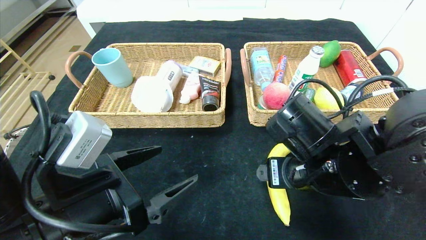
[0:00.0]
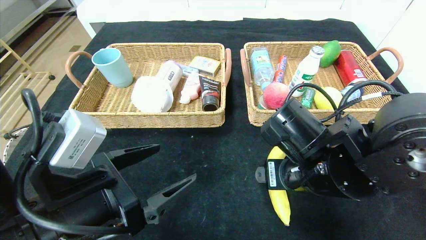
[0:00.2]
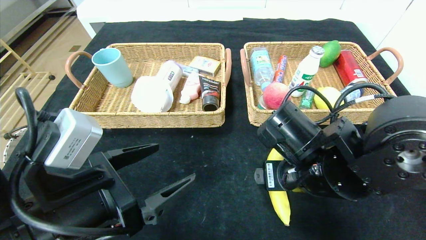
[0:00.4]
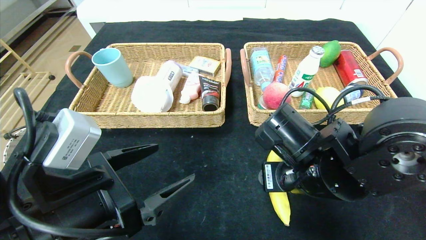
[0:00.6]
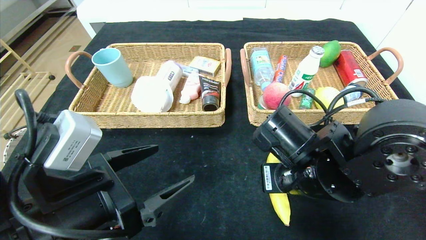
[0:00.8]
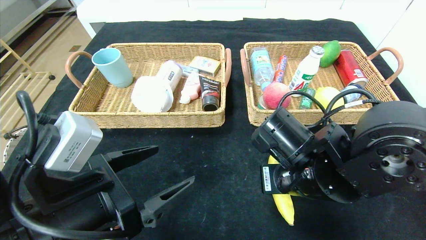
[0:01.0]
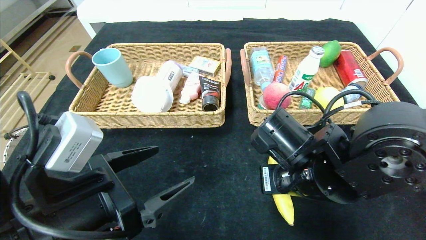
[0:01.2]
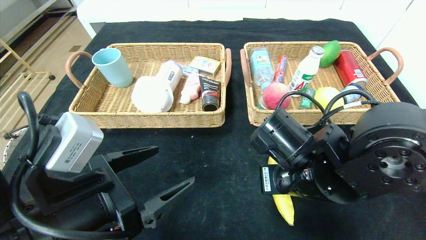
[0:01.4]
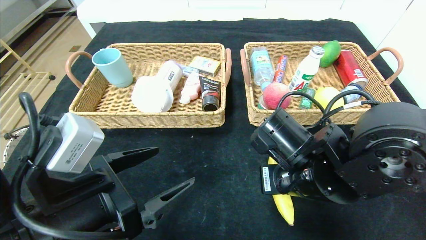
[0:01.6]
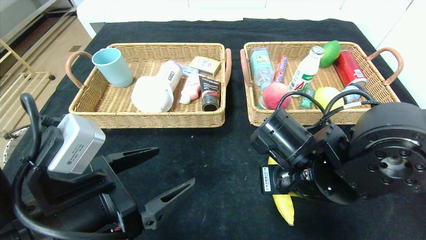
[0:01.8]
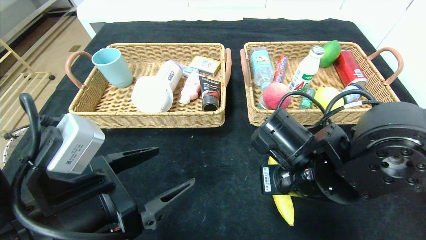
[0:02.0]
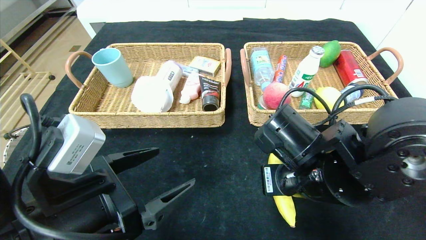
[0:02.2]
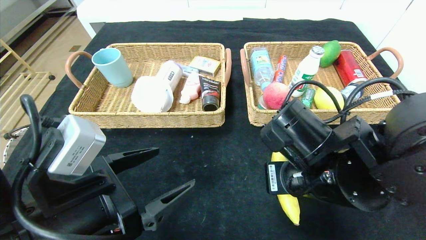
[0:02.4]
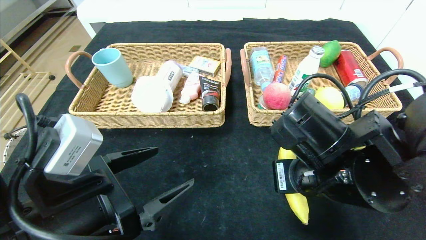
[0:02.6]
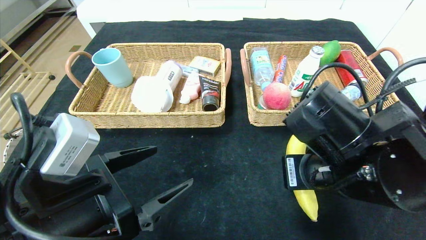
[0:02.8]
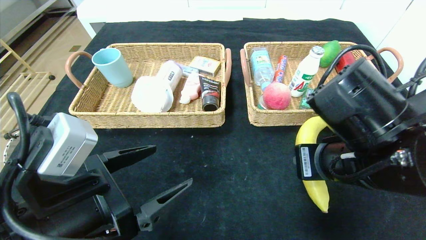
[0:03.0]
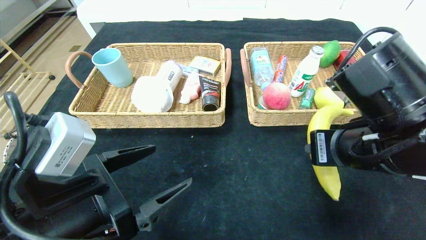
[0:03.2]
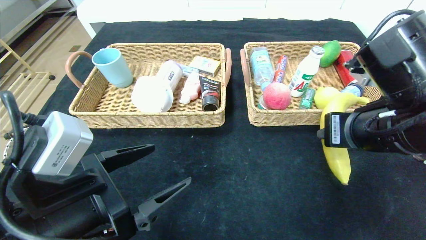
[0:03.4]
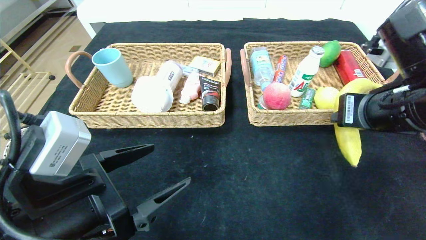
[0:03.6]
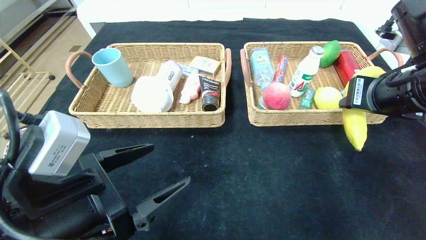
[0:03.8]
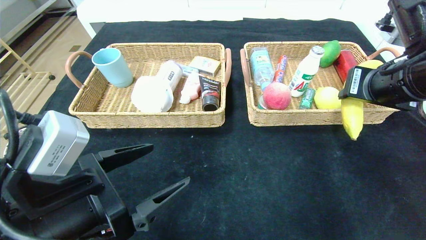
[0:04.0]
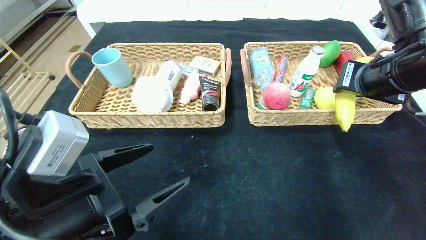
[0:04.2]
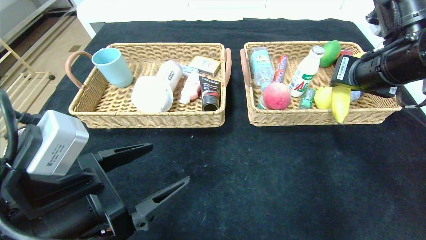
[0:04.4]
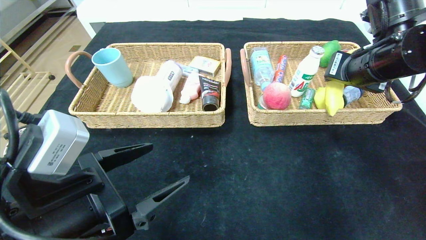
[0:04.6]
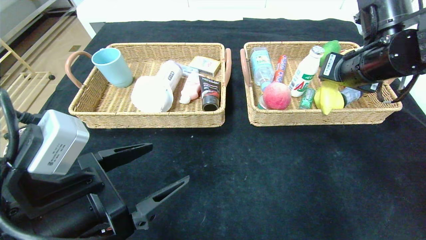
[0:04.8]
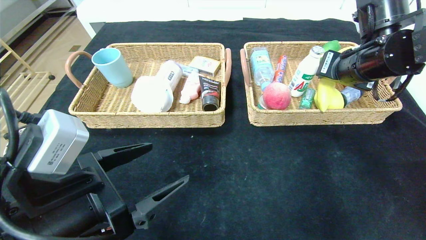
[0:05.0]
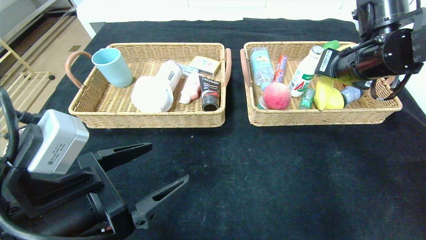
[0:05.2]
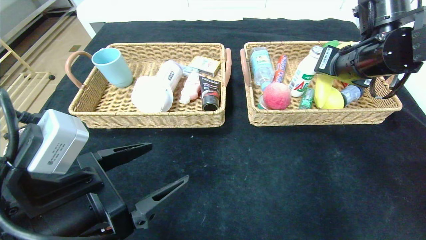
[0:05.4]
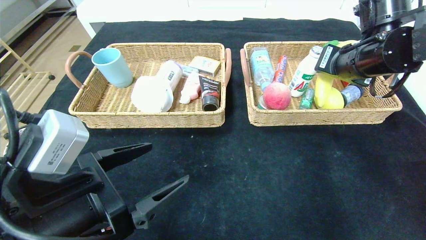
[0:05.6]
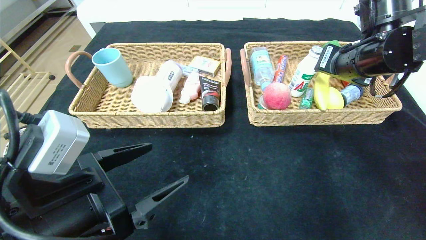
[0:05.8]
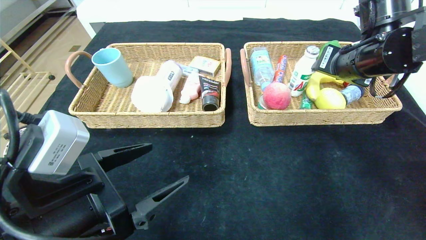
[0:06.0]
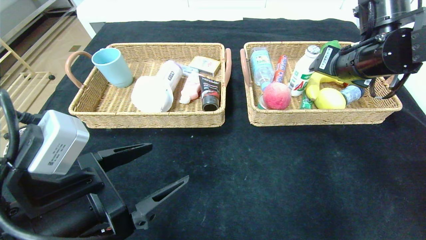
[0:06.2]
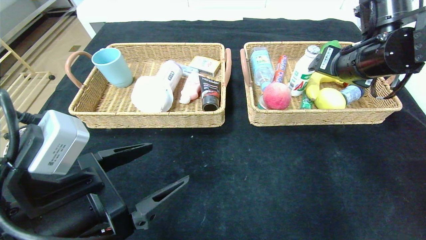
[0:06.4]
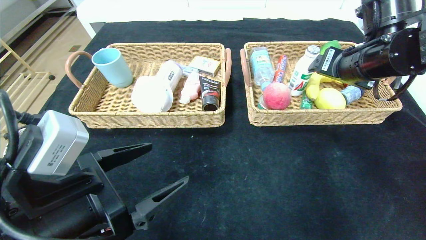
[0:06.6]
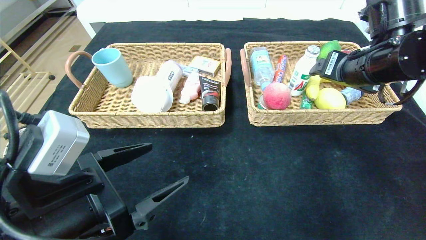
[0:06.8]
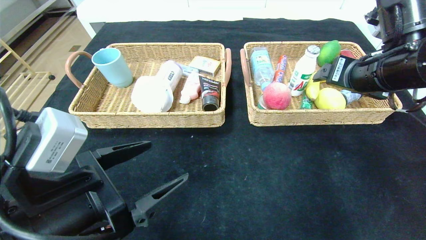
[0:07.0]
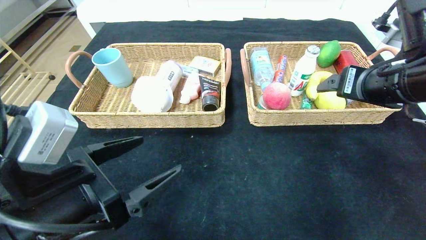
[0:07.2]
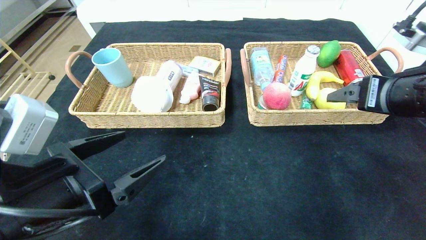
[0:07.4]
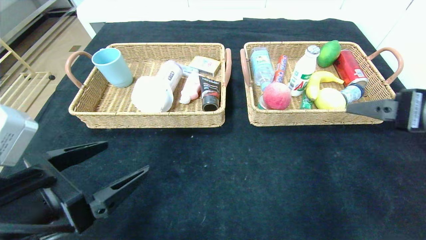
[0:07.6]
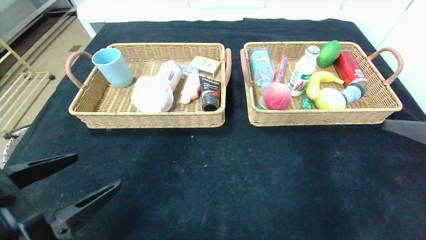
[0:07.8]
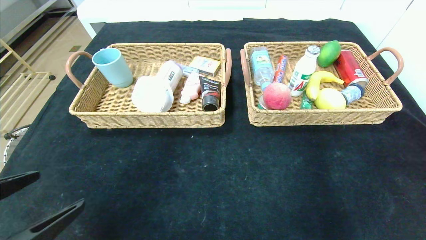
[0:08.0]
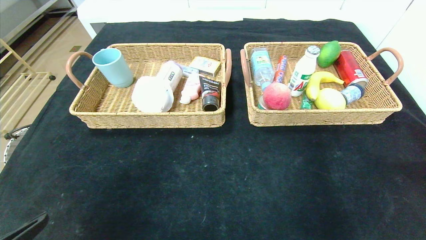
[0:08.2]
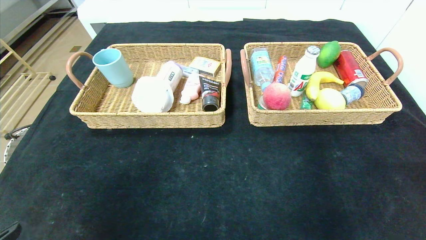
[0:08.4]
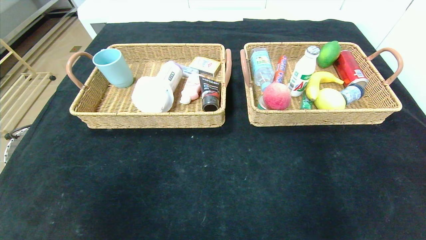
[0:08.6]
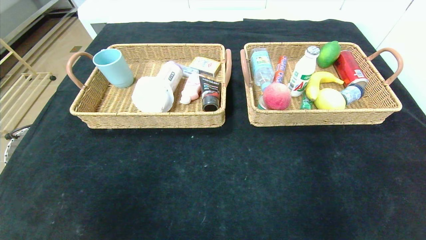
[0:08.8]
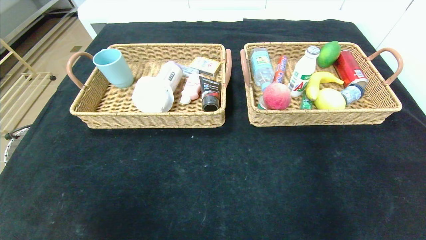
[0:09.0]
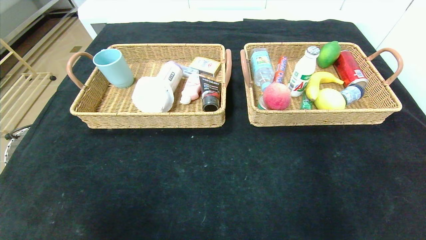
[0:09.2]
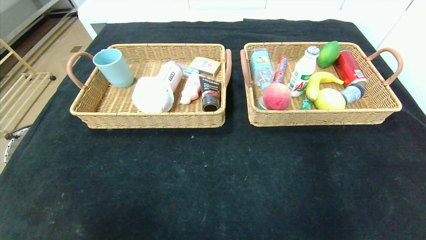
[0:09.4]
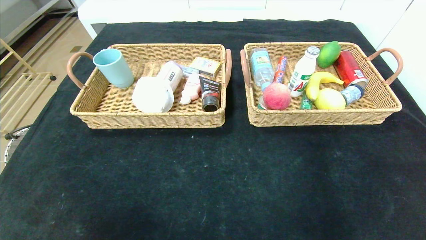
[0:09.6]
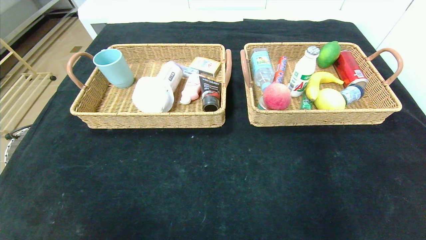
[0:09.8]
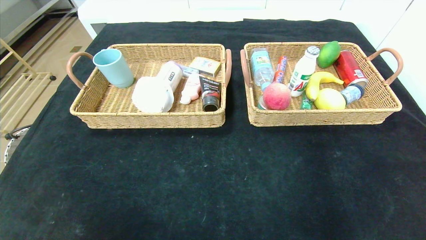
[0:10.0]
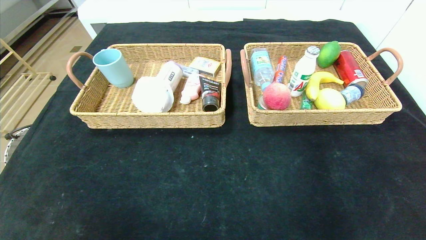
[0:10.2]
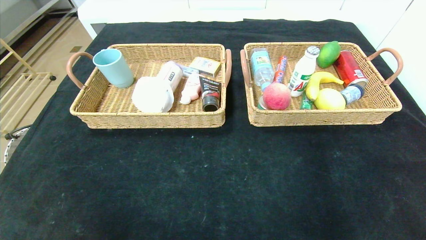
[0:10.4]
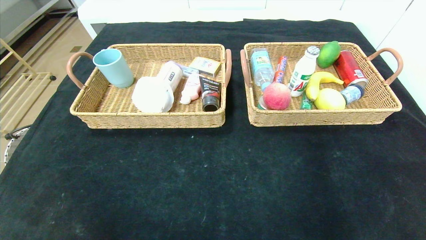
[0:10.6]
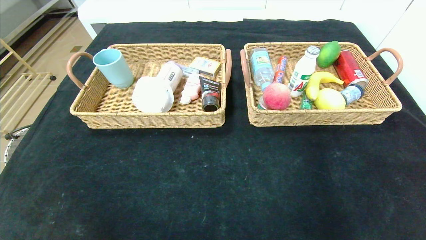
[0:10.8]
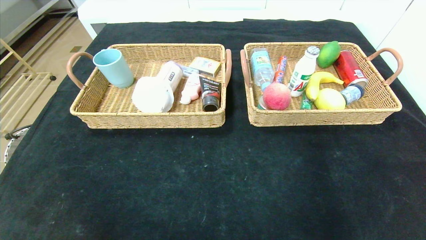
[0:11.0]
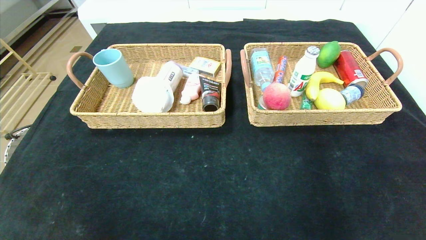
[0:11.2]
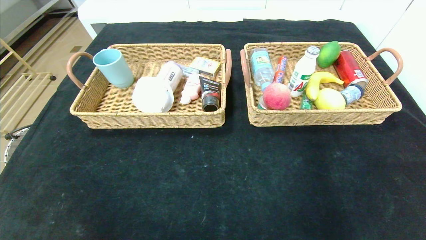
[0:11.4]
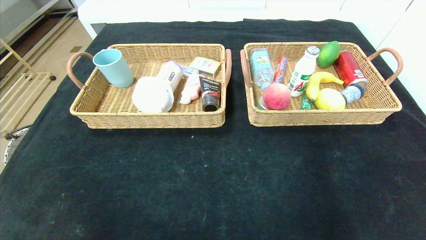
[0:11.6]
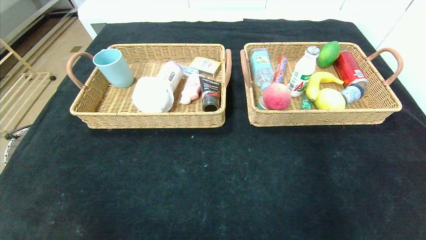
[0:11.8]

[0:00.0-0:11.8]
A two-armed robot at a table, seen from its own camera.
Step, 0:00.0 to 0:07.8: Pick up the banana and put it in the right basket.
0:00.0 to 0:01.4: The right gripper closes.
0:01.4 to 0:03.0: The right gripper shifts about 5 cm upward.
0:03.0 to 0:04.4: The right gripper travels forward, to the right and upward by approximately 15 cm.
0:04.4 to 0:06.0: The right gripper opens up.
0:06.0 to 0:07.4: The right gripper is displaced backward by roughly 10 cm, and opens.
0:07.4 to 0:08.8: The left gripper goes some 20 cm backward and to the left. The right gripper goes roughly 30 cm backward.

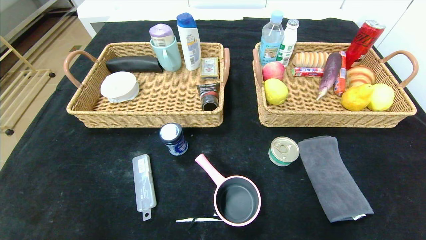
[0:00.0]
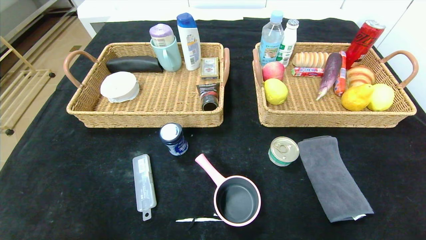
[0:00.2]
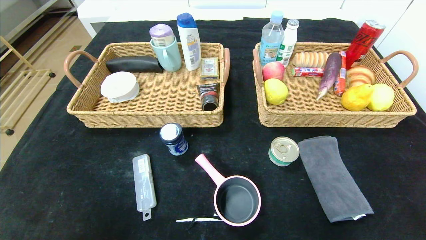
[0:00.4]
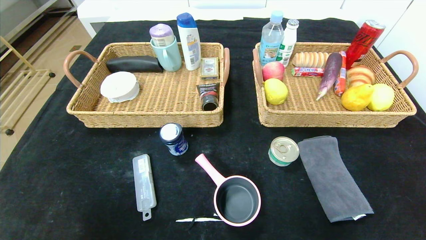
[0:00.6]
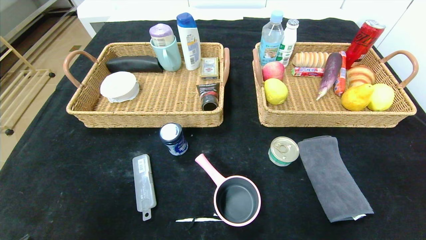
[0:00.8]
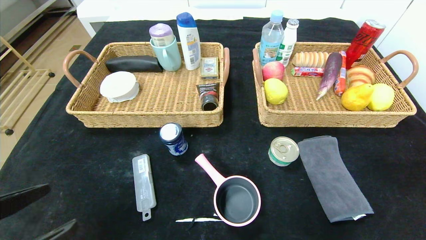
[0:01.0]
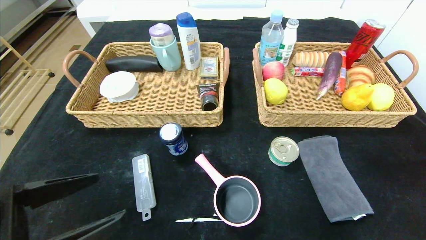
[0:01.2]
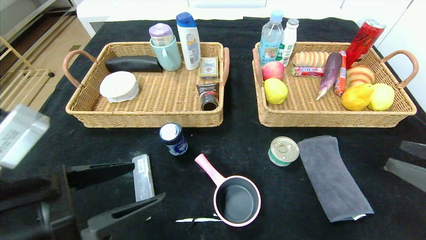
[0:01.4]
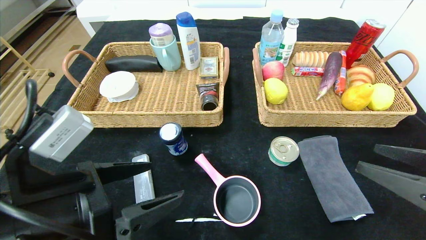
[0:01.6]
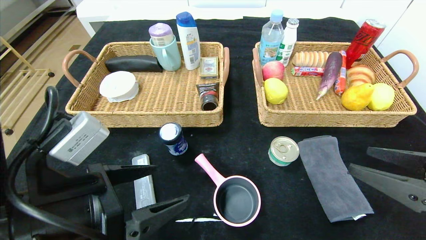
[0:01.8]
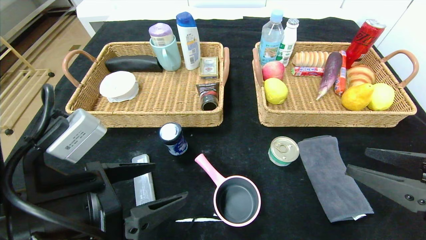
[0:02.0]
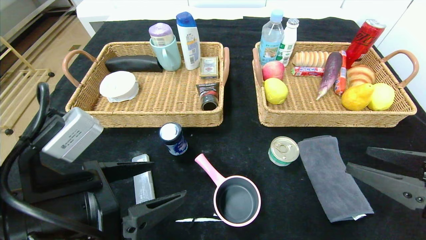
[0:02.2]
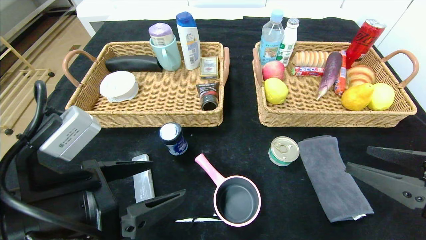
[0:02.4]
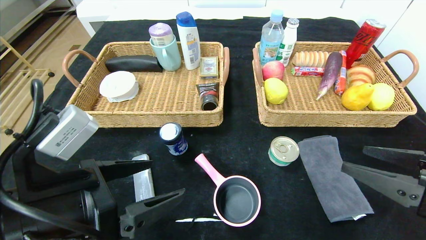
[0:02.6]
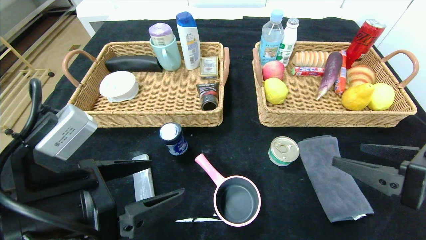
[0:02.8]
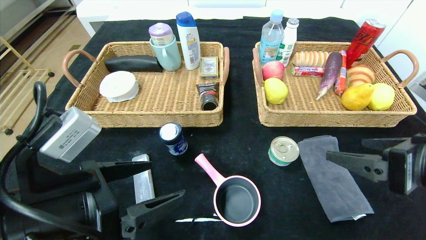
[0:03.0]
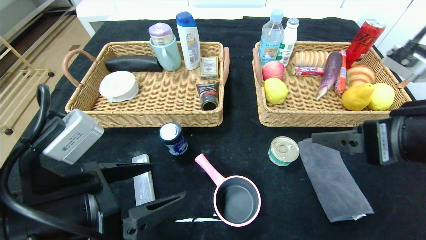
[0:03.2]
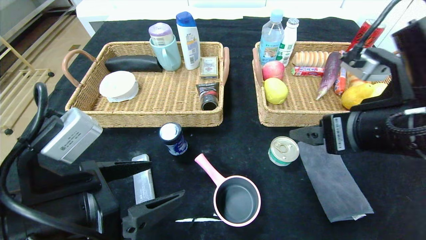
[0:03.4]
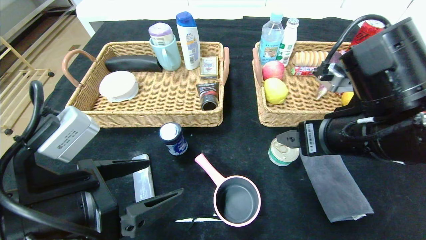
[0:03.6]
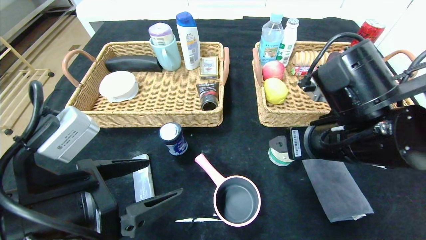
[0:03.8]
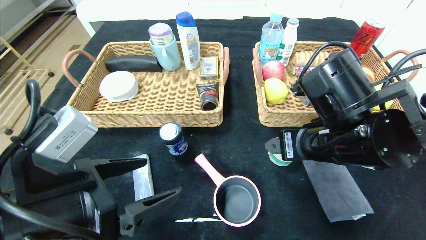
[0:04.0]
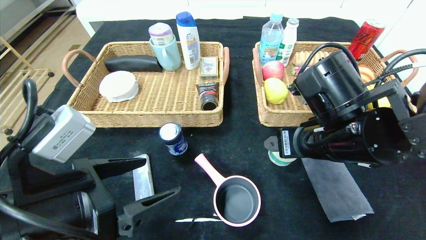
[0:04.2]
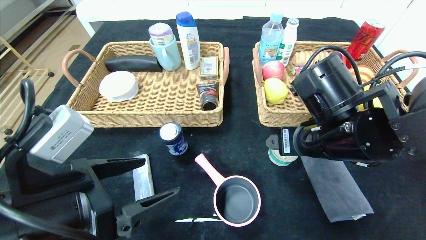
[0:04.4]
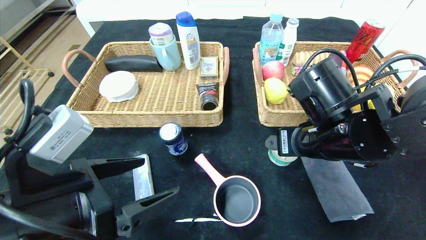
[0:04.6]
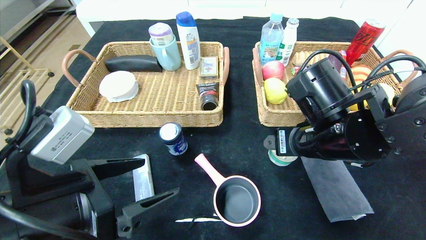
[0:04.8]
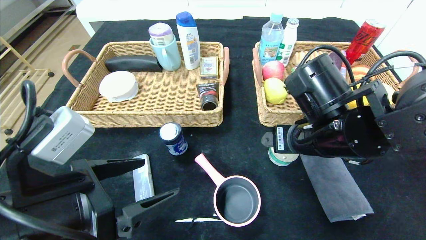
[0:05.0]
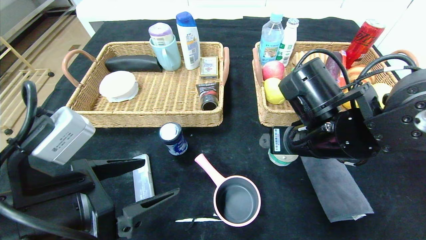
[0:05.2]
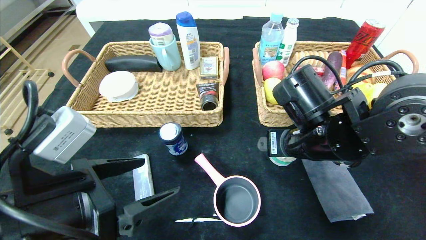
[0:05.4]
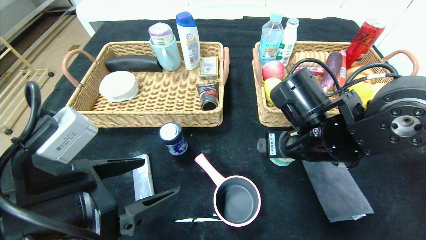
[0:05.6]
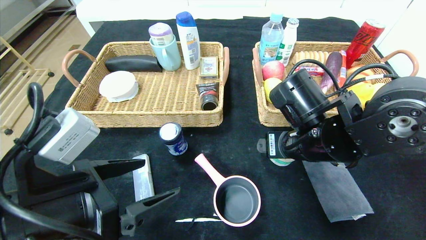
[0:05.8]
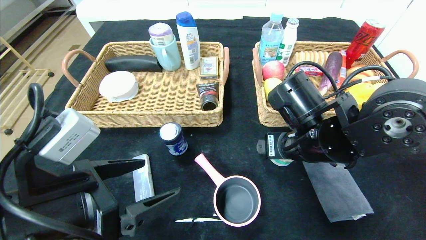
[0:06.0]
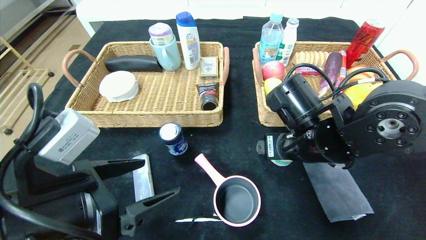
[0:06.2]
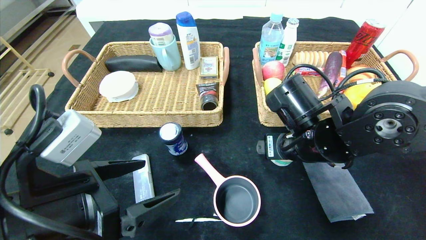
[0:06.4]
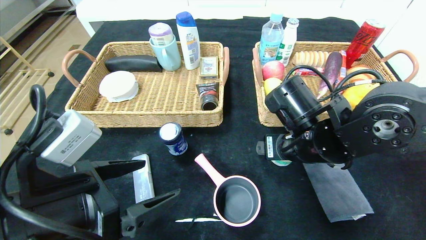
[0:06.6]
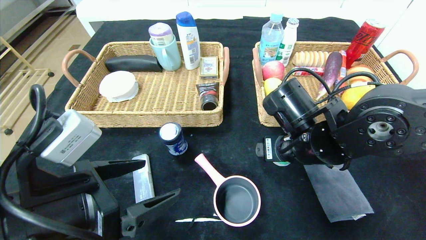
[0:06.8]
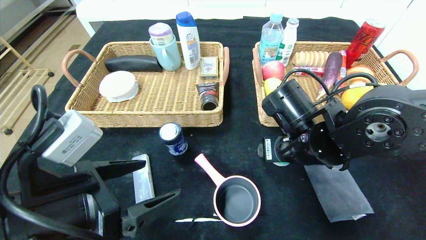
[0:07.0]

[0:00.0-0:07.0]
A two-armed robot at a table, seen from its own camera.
0:00.0 to 0:01.4: The right gripper shifts some 20 cm upward and forward, while the left gripper goes some 25 cm upward, forward and to the right.
0:01.4 to 0:02.8: The right gripper changes place by approximately 5 cm.
0:02.8 to 0:04.2: The right gripper heads to the left and forward, covering about 15 cm.
0:04.2 to 0:07.0: The grippers stay close to where they were, moving slightly.